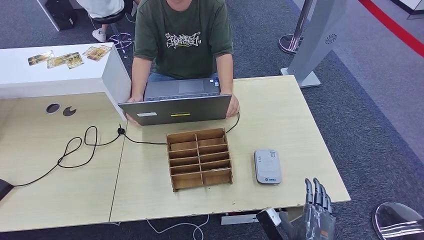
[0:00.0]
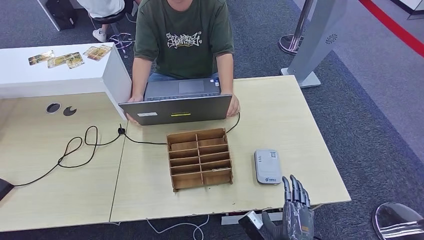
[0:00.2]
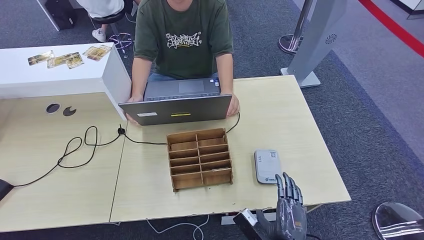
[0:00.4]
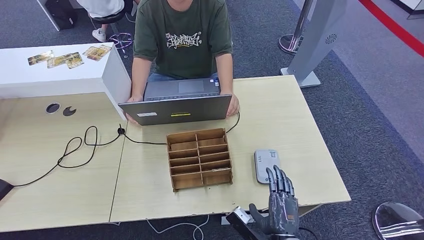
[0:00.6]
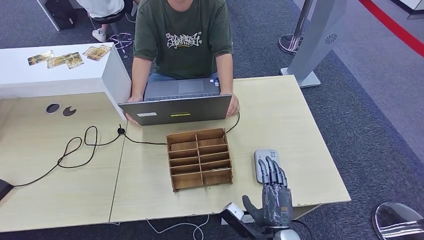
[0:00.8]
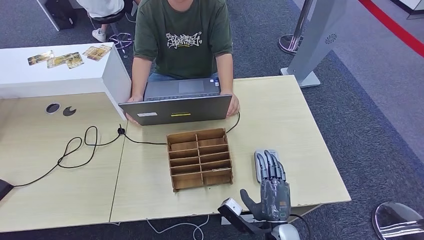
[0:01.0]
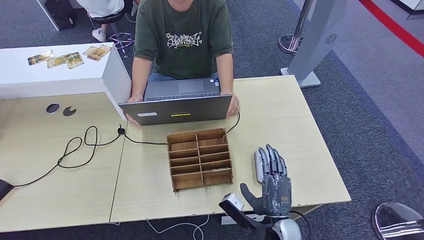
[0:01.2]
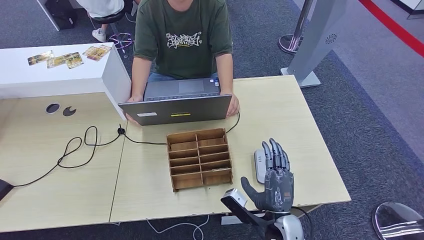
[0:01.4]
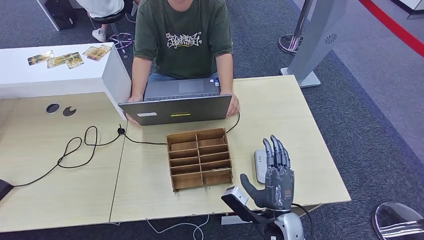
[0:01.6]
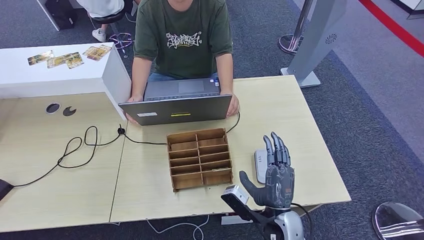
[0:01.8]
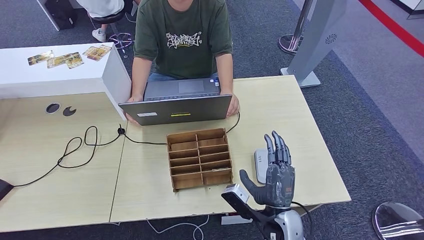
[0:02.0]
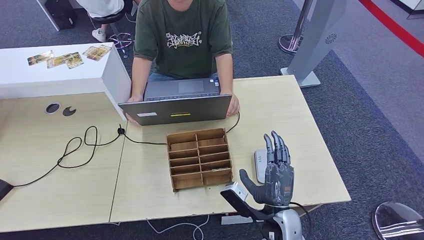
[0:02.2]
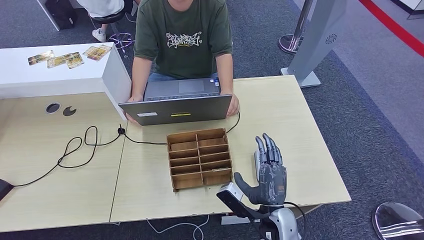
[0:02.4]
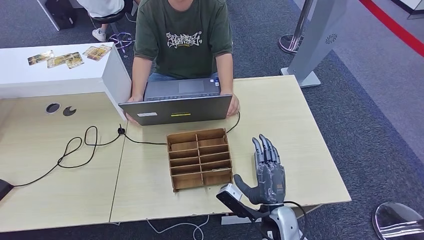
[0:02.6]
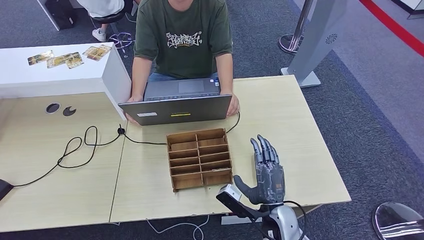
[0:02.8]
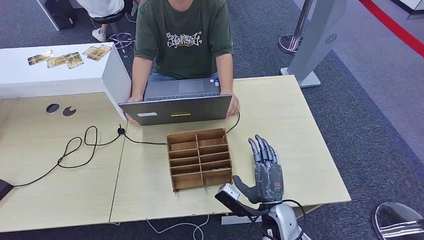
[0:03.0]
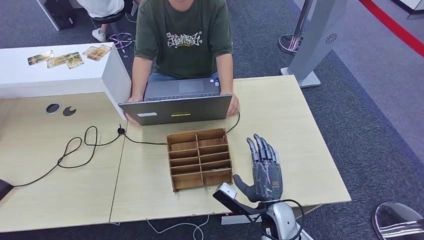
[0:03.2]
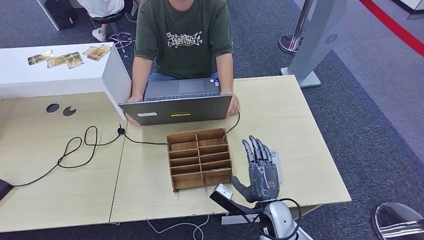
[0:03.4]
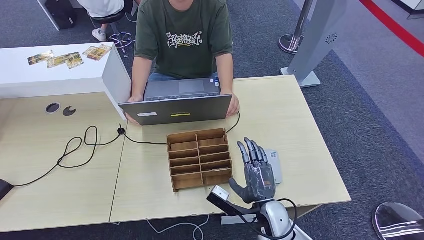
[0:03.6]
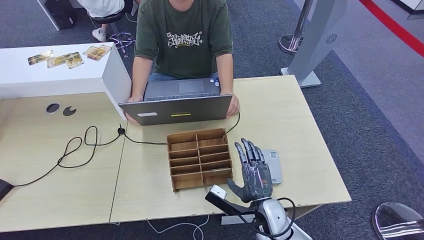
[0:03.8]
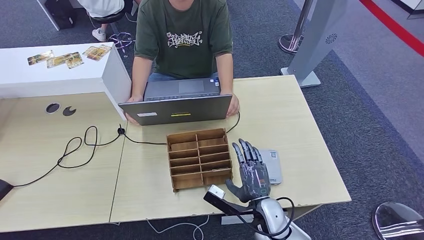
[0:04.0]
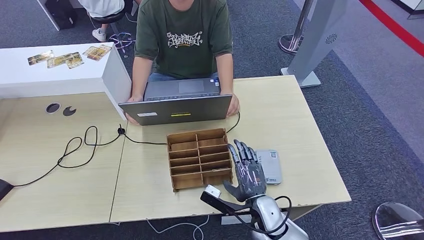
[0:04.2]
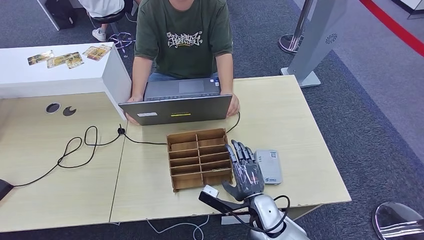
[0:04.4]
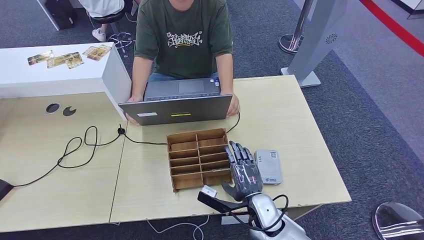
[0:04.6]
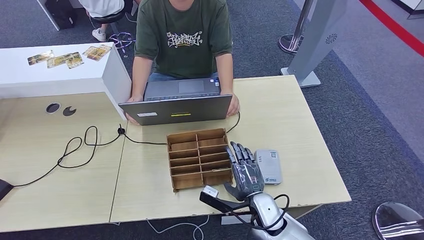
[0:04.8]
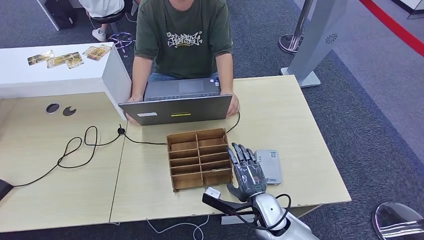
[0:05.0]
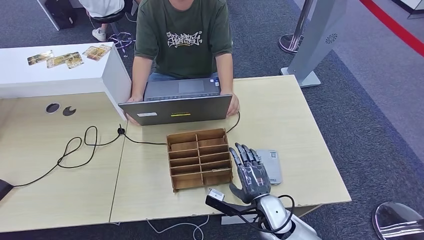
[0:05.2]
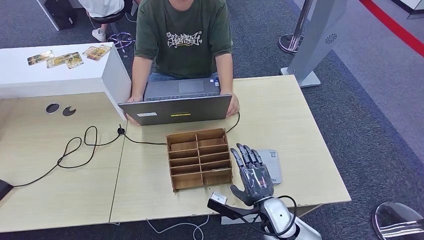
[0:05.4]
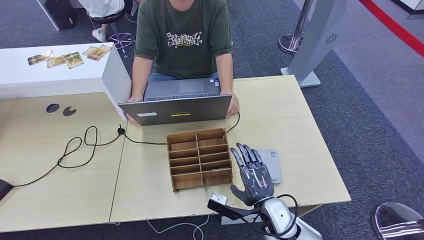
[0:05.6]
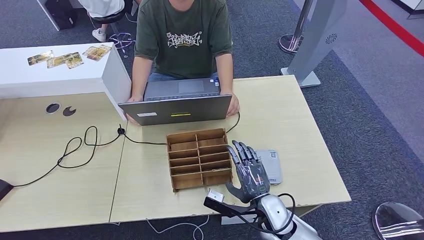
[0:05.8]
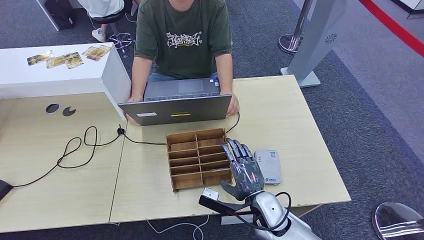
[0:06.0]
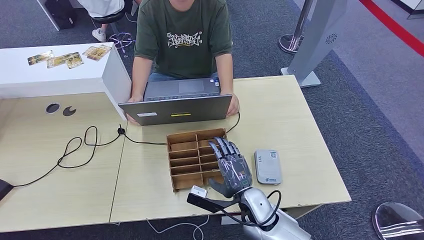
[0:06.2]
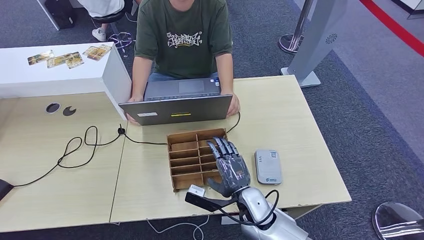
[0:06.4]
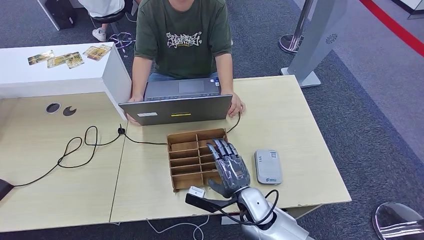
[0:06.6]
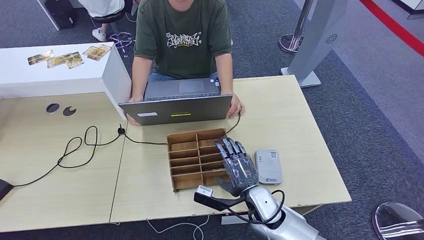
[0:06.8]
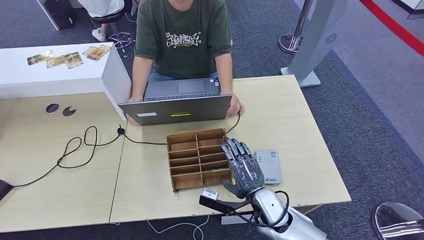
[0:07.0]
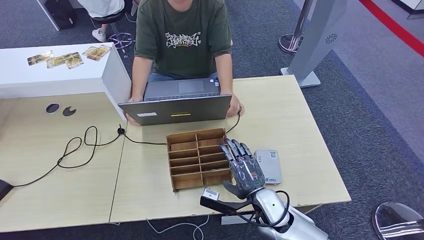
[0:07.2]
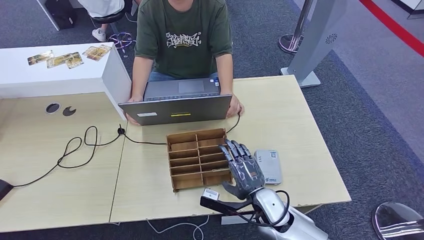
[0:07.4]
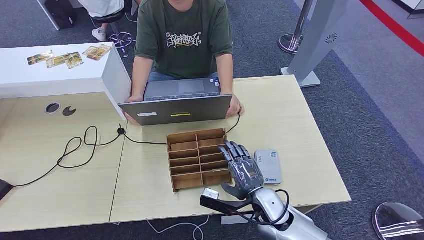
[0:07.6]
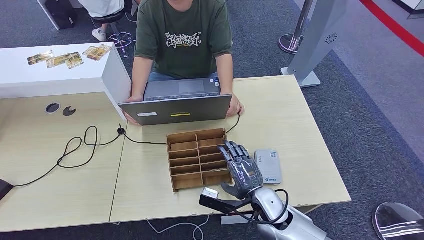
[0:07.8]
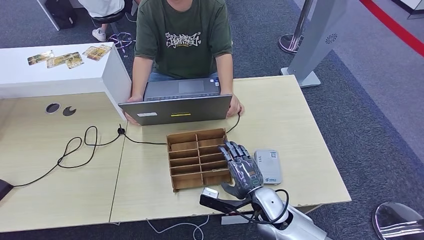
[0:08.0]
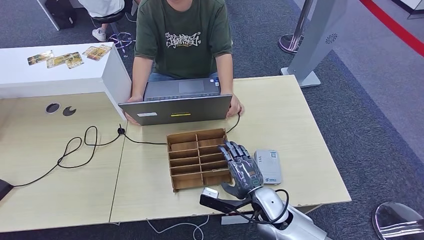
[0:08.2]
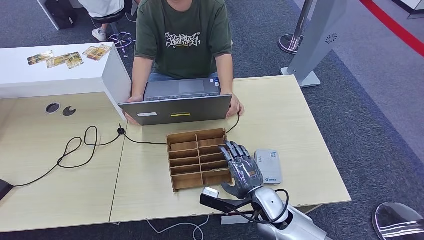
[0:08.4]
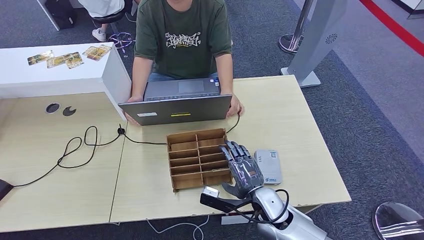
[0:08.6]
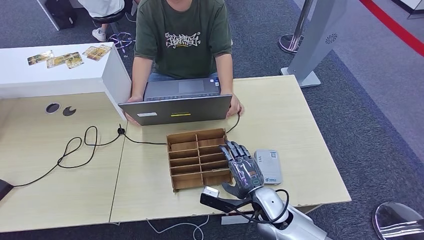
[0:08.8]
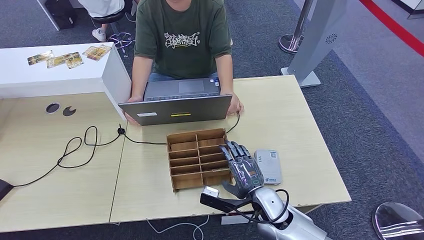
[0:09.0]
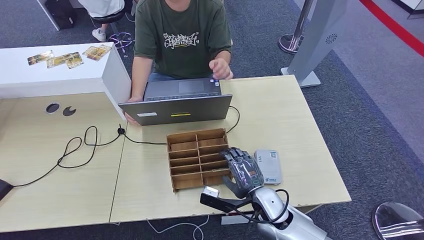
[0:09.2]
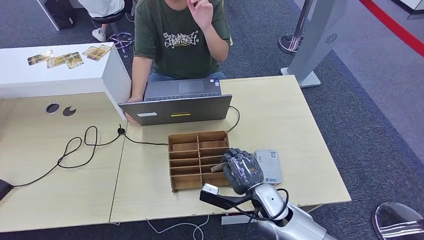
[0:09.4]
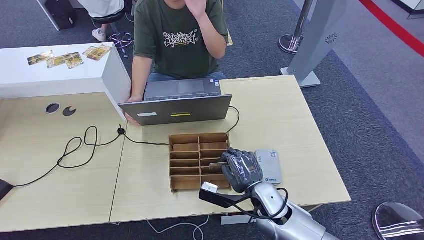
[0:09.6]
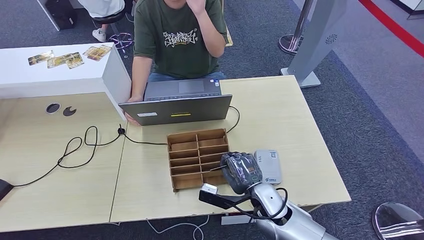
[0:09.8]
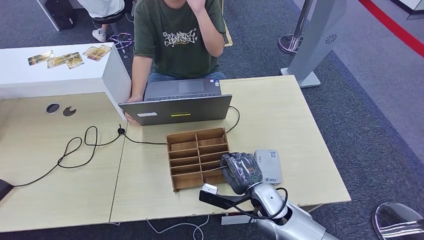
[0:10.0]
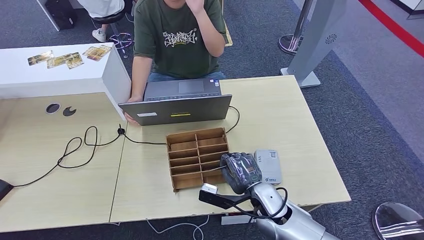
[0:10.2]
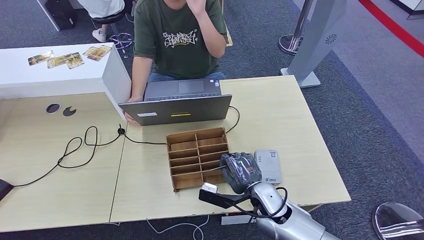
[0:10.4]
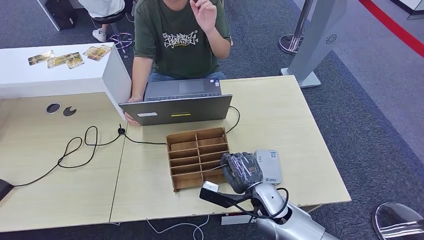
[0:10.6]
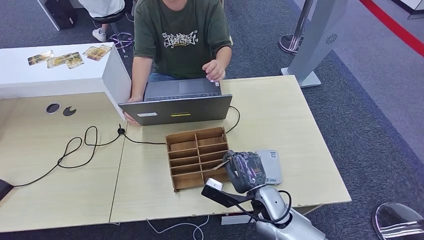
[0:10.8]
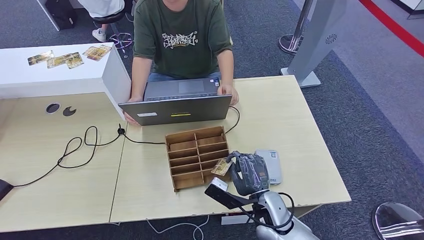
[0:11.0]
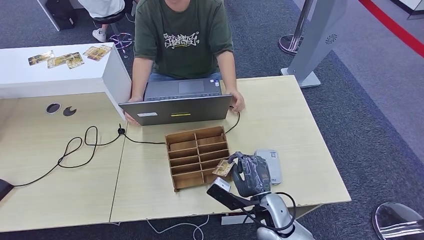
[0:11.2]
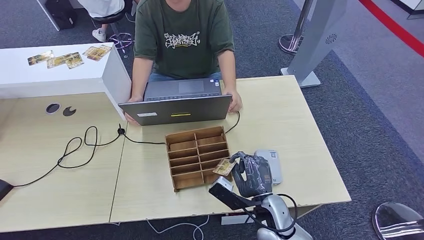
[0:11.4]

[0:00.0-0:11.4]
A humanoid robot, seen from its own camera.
0:00.0 to 0:01.4: The right hand heads forward and to the left, covering some 10 cm.
0:01.4 to 0:02.8: The hands move only a little.
0:02.8 to 0:04.2: The hands make only small movements.
0:04.2 to 0:05.6: The hands move only a little.
0:07.2 to 0:08.6: The hands make only small movements.
0:08.6 to 0:10.0: Neither hand changes place.

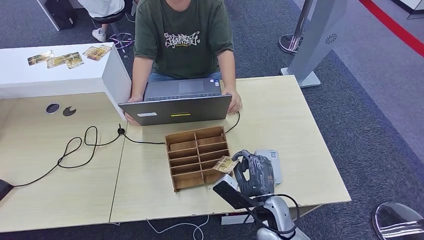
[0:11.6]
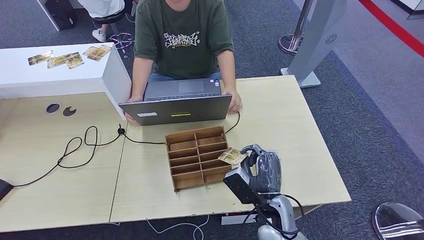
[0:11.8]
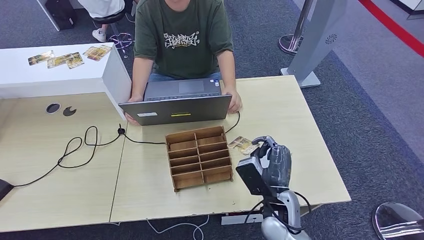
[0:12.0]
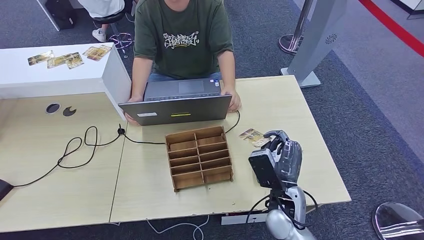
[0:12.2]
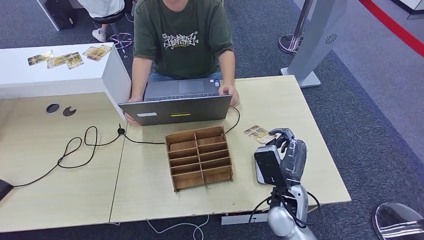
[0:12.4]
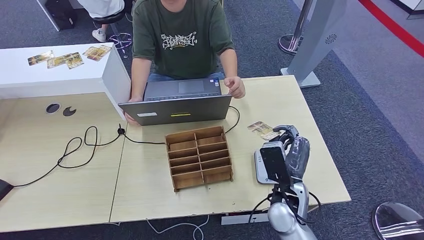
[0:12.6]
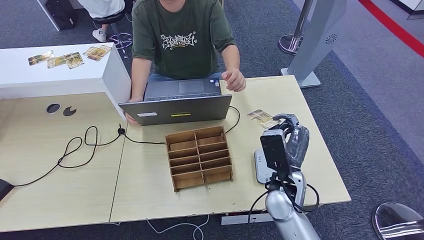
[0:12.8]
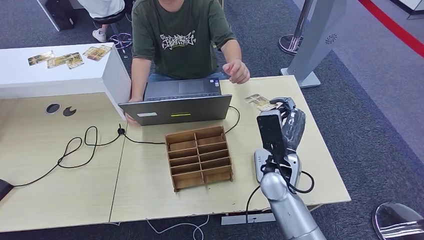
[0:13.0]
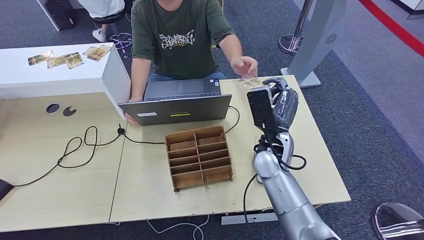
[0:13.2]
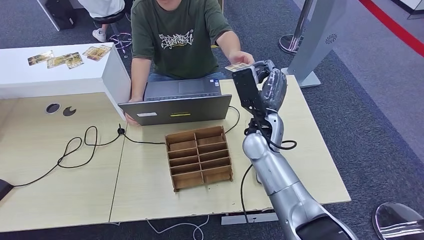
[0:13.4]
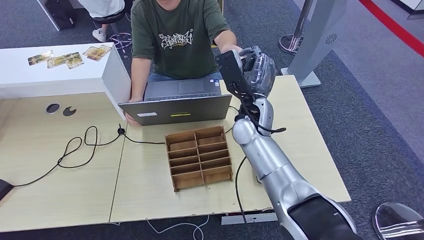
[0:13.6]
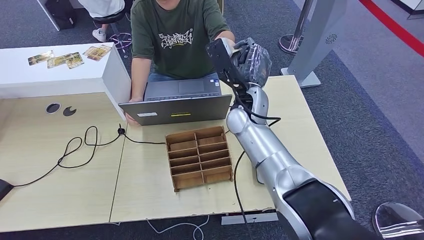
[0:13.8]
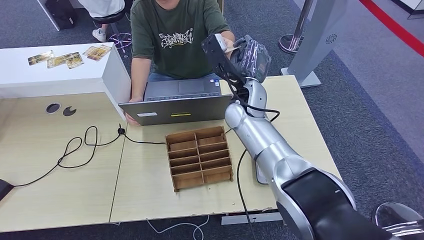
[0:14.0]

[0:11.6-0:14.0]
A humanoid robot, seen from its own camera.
Step, 0:12.0 to 0:14.0: Hand the room key to the person.
0:11.6 to 0:12.8: The right hand shifts some 10 cm upward and forward.
0:12.8 to 0:14.0: The right hand moves forward, upward and to the left, roughly 20 cm.
